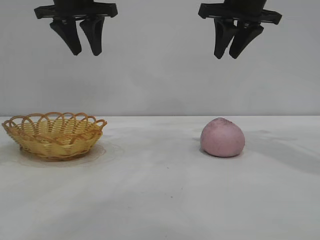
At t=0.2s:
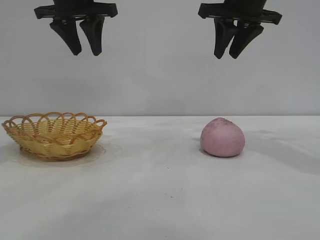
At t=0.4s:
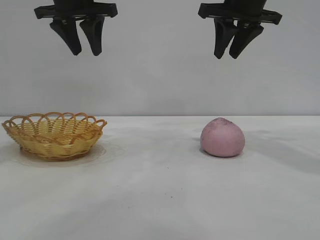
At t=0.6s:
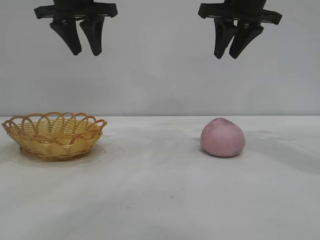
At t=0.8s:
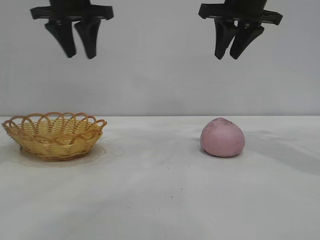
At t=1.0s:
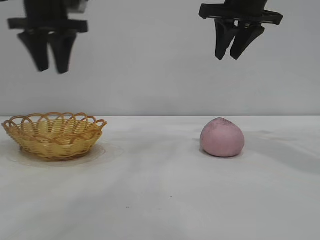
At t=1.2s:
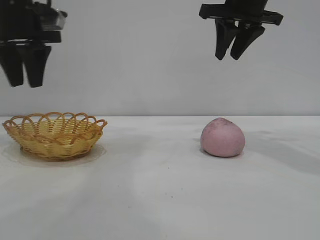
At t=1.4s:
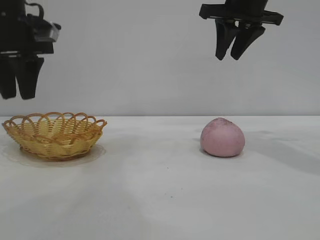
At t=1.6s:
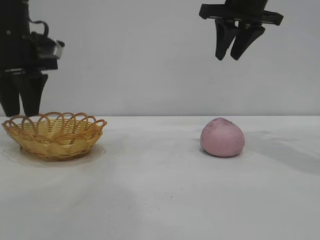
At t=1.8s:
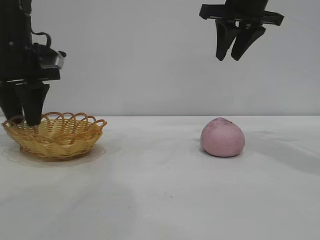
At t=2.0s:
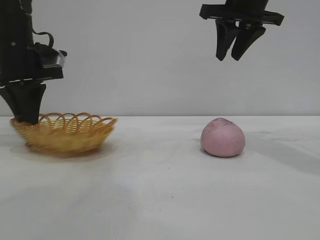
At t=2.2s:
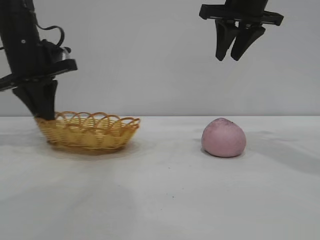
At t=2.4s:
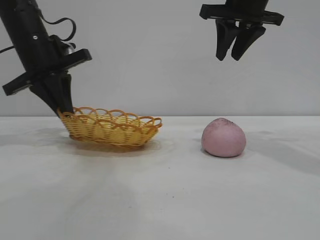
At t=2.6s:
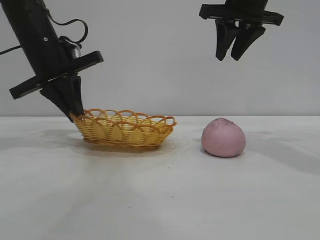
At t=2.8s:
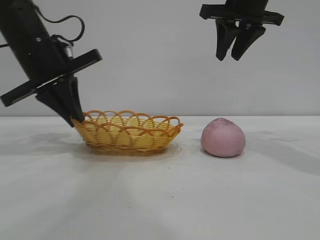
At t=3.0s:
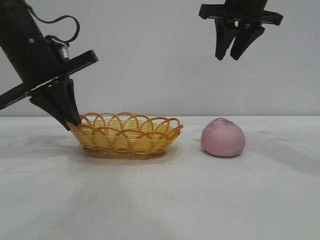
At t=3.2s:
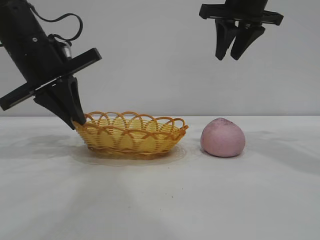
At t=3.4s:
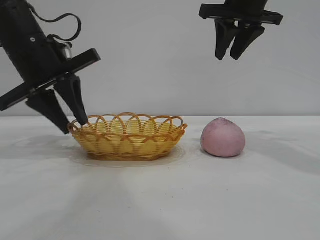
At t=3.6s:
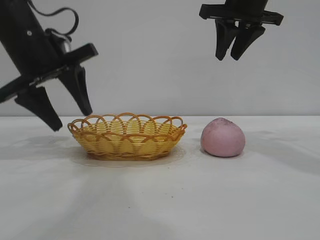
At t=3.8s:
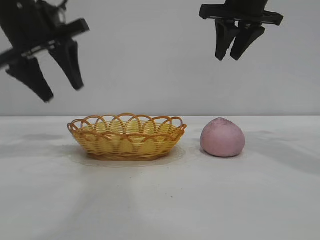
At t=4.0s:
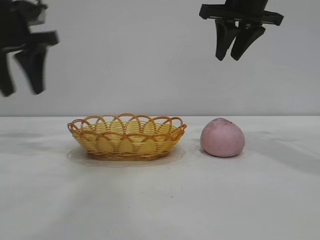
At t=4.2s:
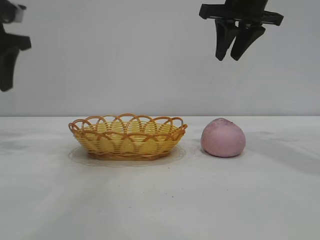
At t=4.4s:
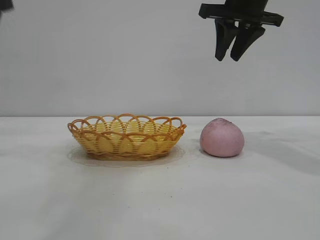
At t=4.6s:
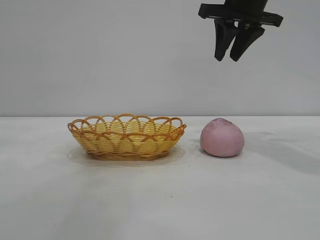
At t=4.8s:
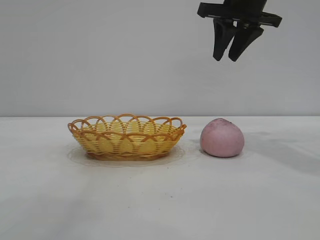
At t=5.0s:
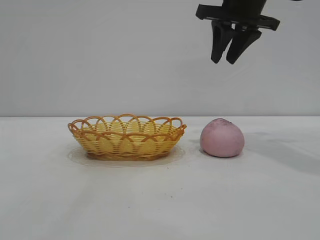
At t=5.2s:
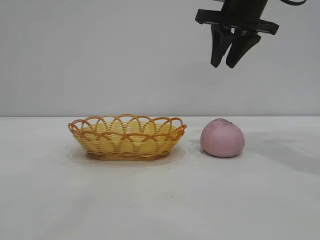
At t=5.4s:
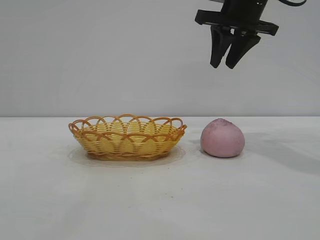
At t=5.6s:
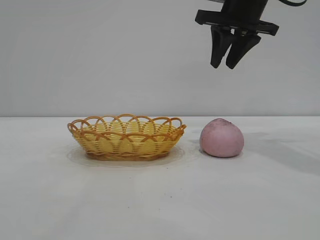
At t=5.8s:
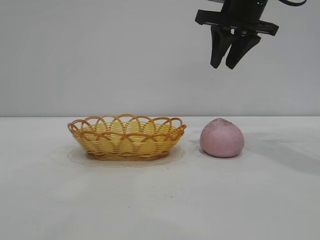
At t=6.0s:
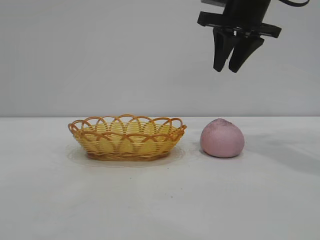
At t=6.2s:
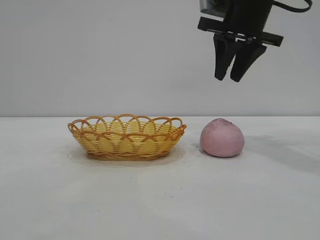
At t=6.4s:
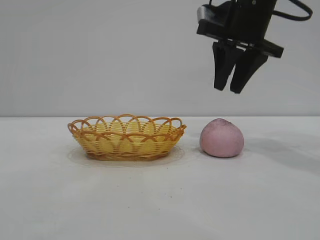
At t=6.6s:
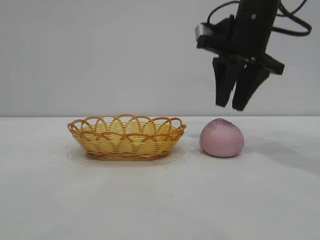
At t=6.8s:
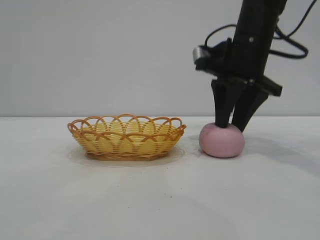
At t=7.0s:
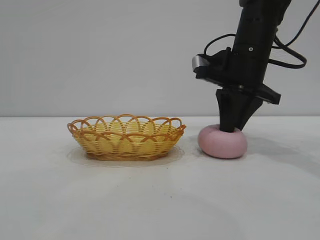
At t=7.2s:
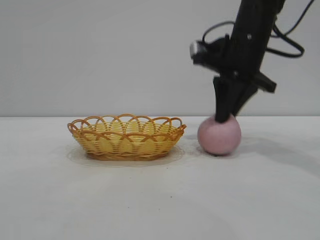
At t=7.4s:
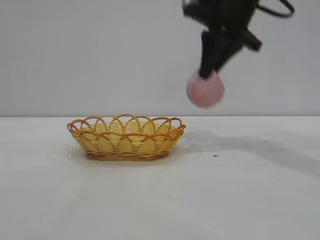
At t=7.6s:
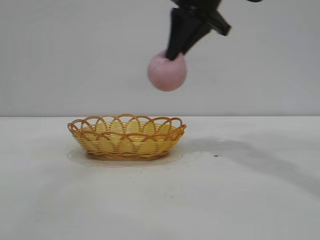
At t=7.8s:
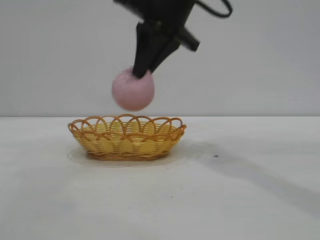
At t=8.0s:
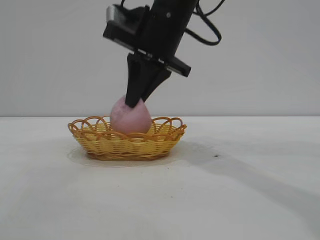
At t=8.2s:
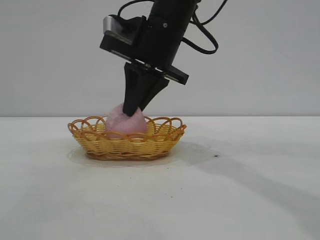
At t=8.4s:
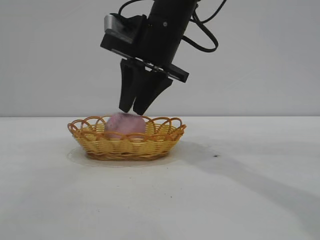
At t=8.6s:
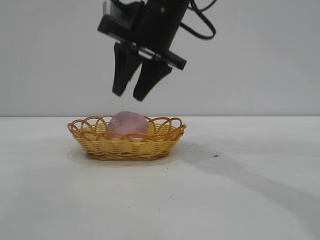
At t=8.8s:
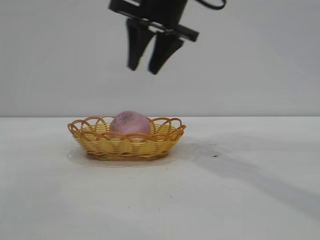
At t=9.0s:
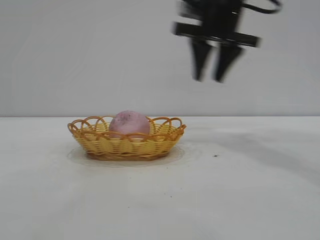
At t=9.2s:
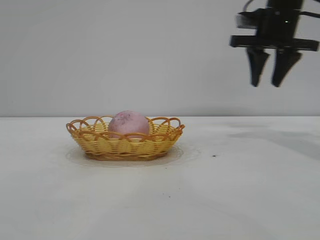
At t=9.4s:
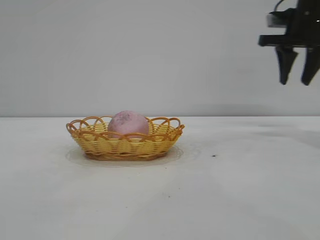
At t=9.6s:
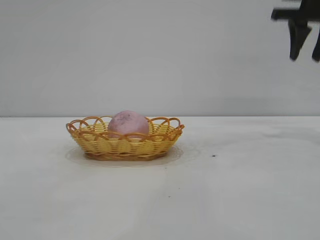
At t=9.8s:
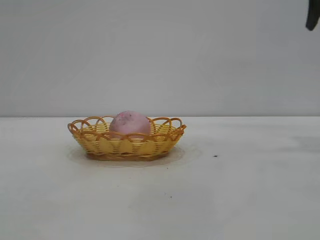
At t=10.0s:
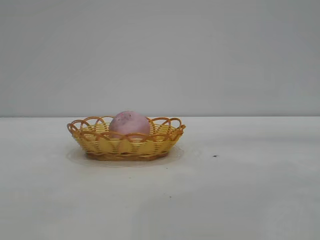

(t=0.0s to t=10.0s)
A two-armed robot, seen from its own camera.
Task of the whole recording: pick up the peach and put it into the basket.
Step, t=0.0s - t=3.6s: Move the basket to the center of view.
Step, t=3.8s - t=7.2s: Pick up the peach.
Step, t=7.4s - t=8.6s: place the peach into the basket.

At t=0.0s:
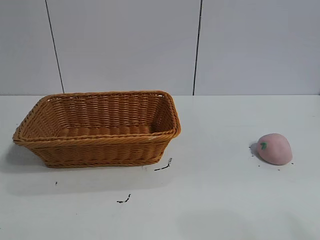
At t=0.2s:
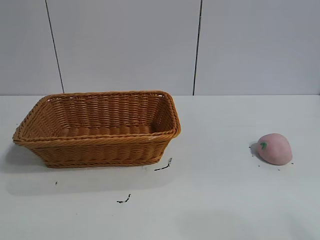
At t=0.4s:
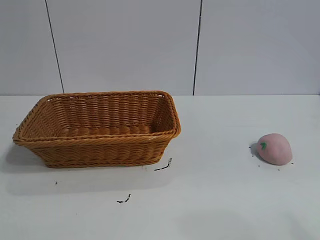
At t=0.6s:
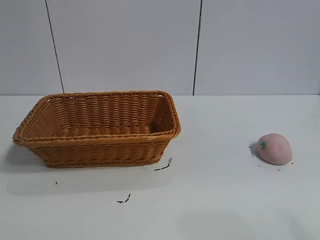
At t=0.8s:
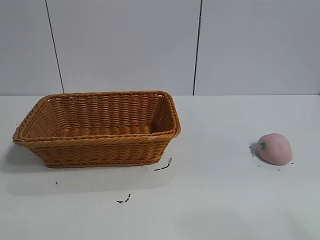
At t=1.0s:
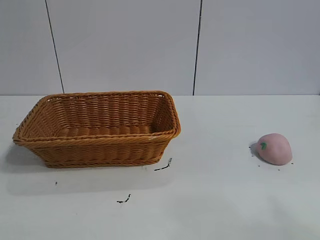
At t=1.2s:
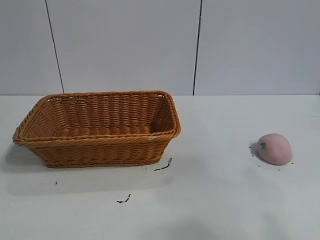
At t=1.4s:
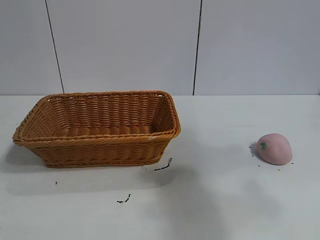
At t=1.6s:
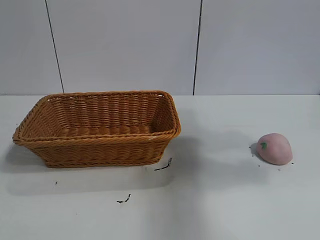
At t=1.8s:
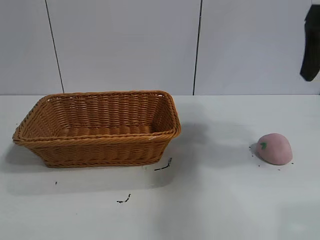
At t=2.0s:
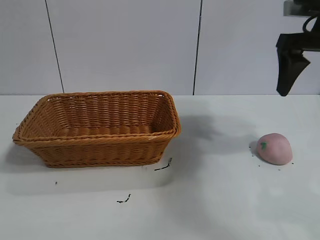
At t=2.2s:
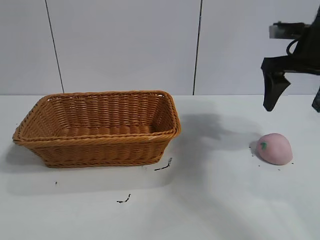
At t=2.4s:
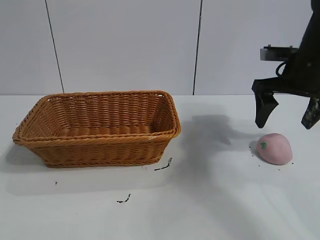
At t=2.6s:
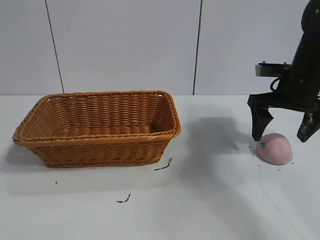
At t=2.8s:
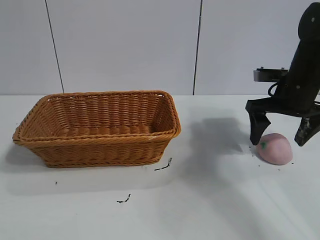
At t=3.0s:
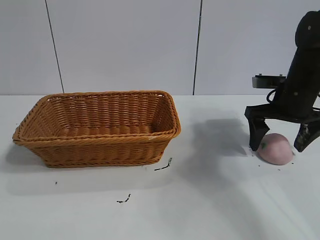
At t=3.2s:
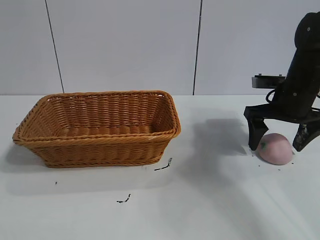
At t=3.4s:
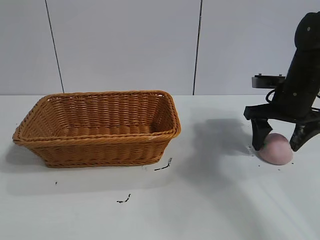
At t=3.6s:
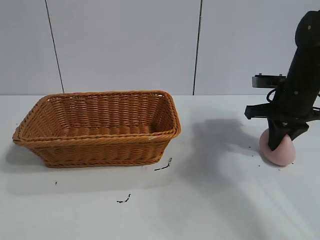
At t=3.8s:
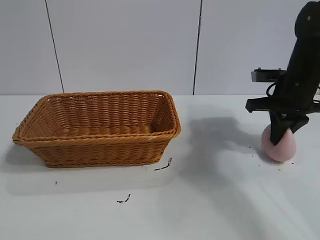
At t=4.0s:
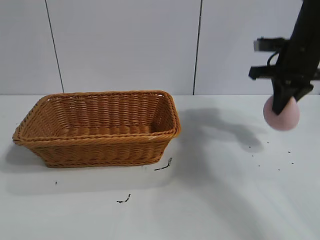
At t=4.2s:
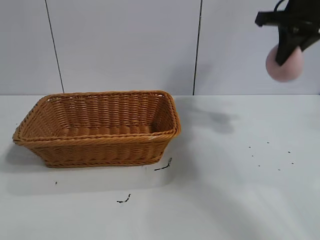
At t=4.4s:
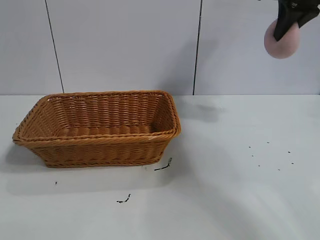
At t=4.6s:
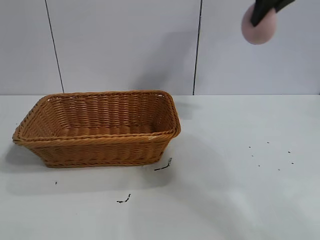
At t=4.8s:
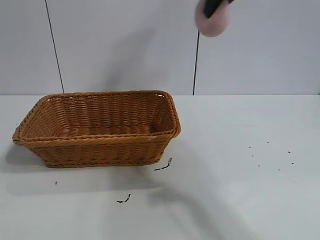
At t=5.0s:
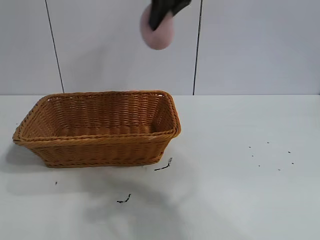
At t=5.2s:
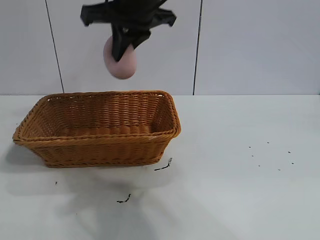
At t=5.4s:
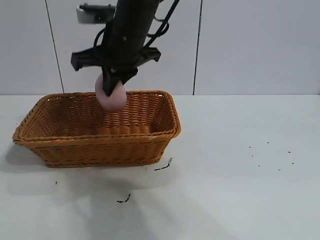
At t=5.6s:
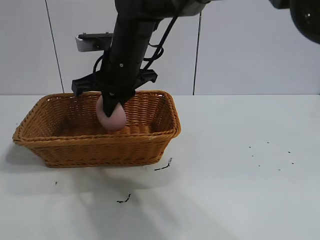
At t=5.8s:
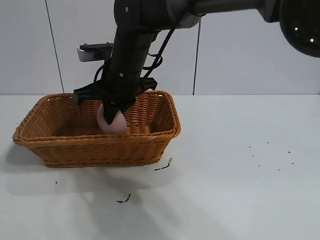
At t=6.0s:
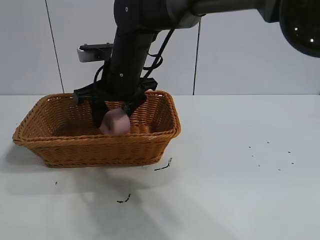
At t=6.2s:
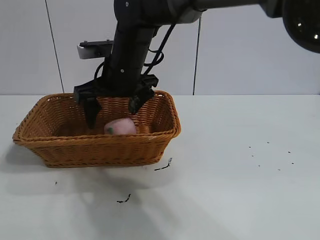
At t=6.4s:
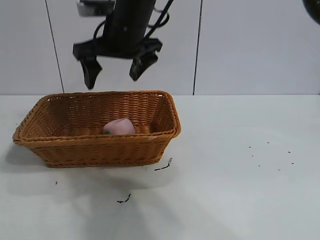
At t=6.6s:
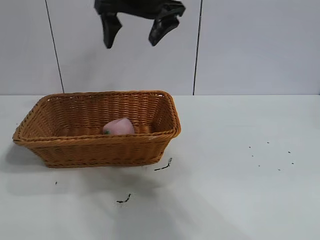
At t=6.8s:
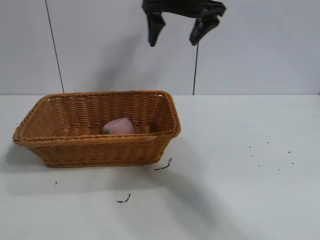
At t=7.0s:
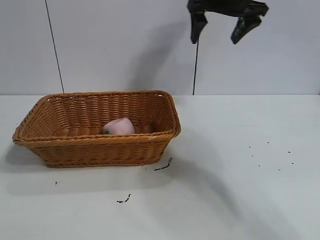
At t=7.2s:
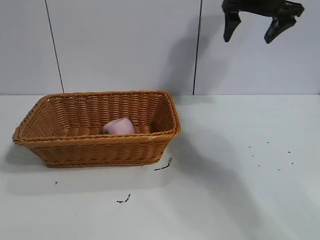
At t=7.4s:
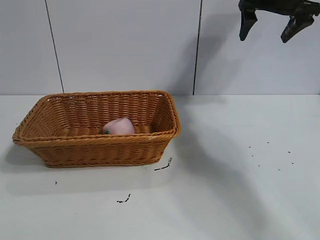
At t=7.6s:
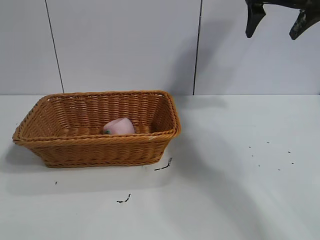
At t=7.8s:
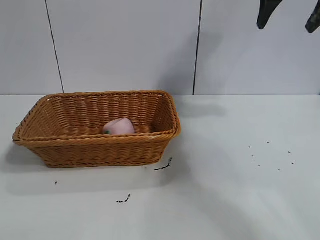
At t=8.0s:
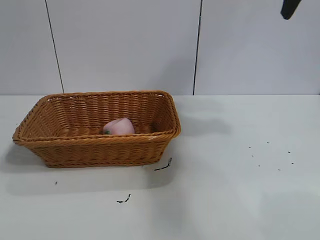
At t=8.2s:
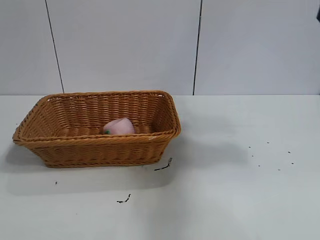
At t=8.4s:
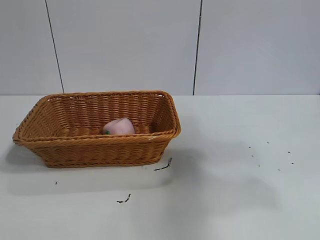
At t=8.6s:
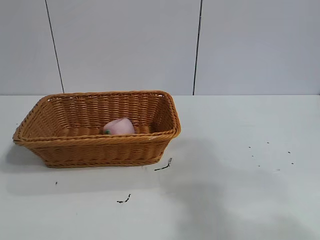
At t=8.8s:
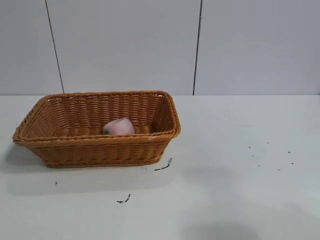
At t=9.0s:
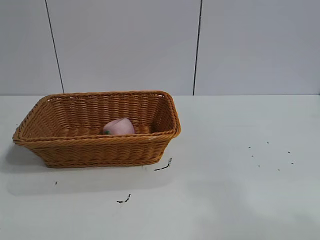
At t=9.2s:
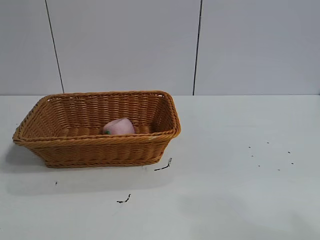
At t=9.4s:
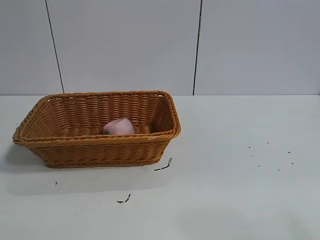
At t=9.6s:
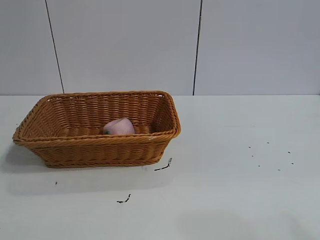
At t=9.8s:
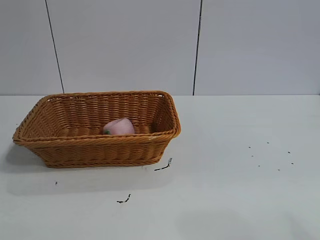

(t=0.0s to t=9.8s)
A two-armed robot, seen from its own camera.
Task of the whole recording: pick up the peach and put it into the basket.
Step, t=1.0s - t=3.8s: Grasp the peach with right gripper.
Step, t=4.0s - t=6.4s: Place the peach in the basket with right gripper.
